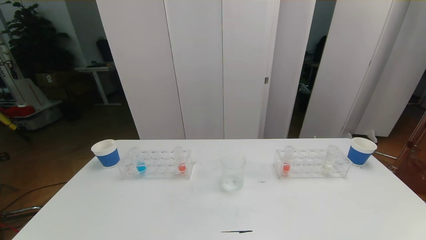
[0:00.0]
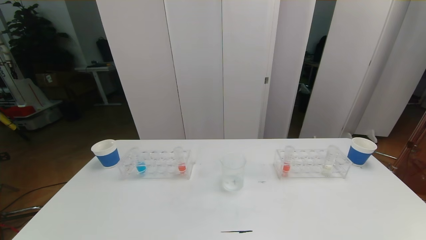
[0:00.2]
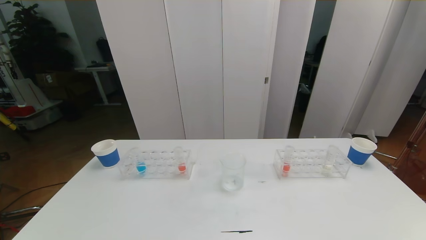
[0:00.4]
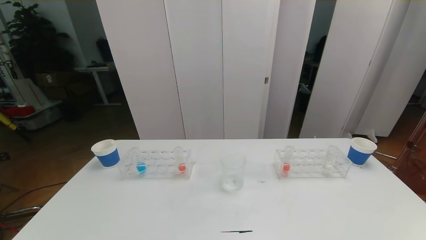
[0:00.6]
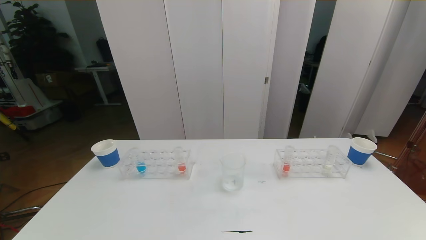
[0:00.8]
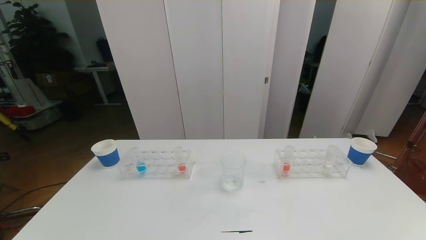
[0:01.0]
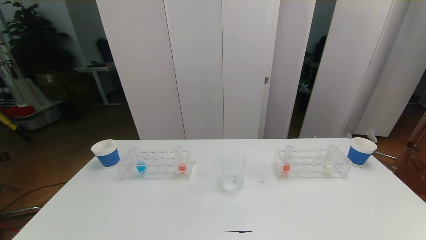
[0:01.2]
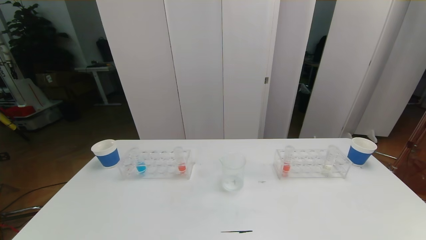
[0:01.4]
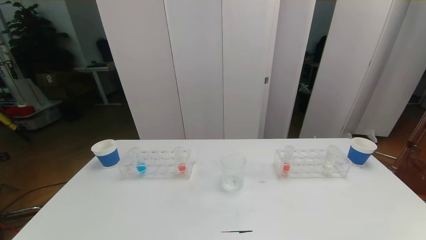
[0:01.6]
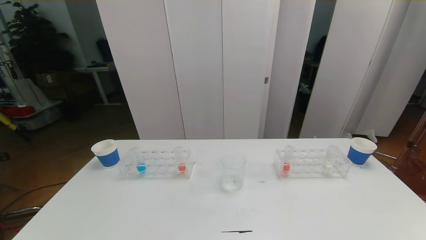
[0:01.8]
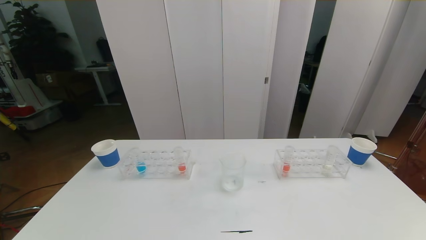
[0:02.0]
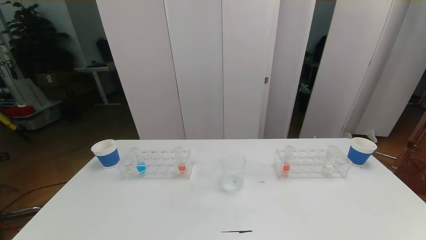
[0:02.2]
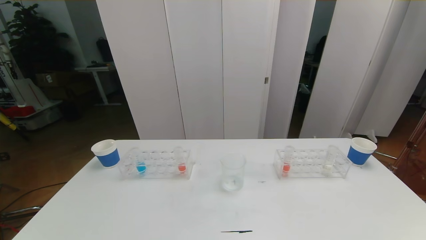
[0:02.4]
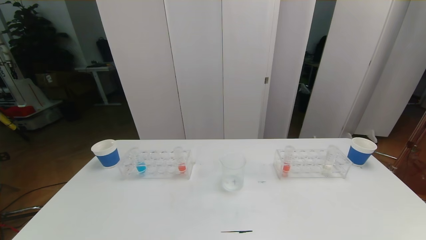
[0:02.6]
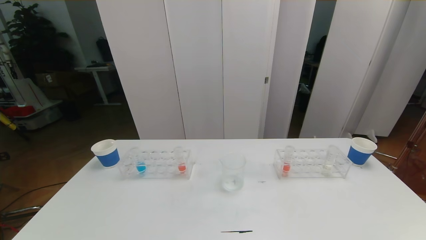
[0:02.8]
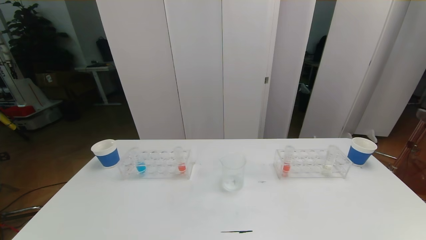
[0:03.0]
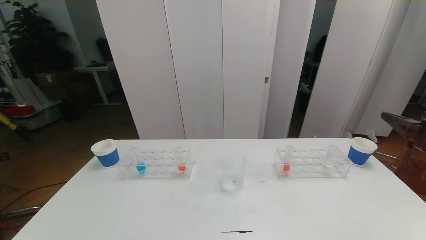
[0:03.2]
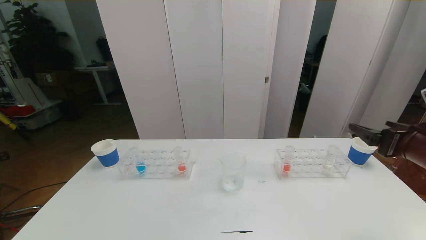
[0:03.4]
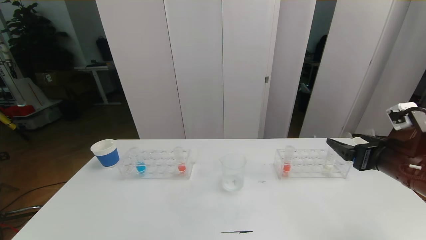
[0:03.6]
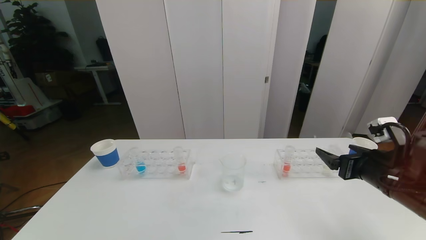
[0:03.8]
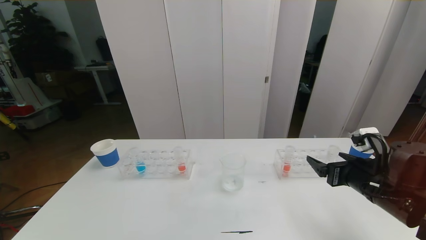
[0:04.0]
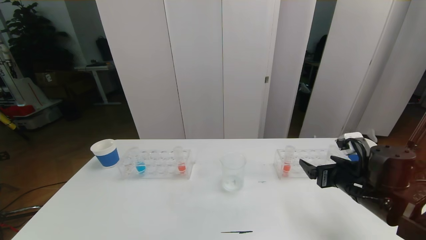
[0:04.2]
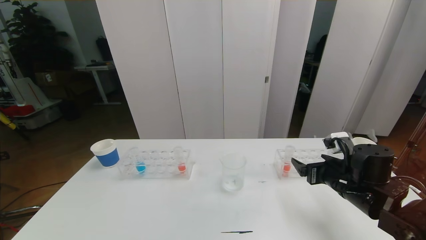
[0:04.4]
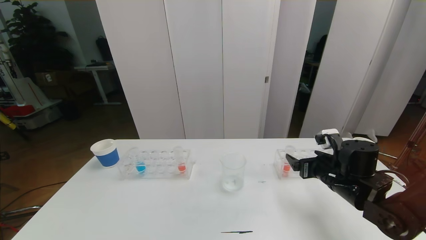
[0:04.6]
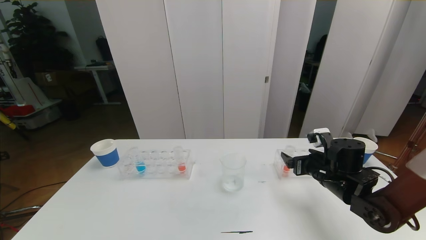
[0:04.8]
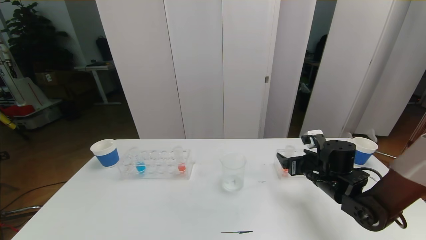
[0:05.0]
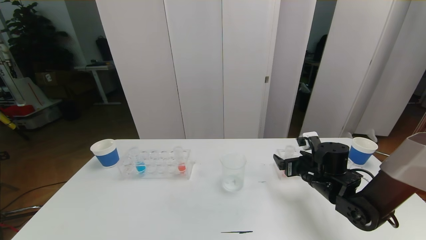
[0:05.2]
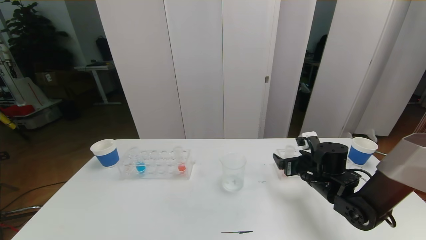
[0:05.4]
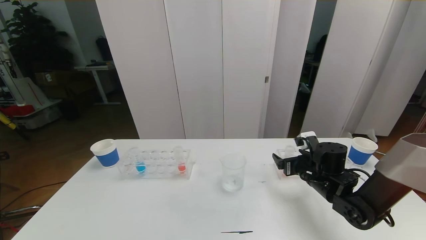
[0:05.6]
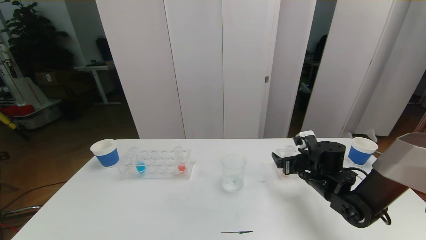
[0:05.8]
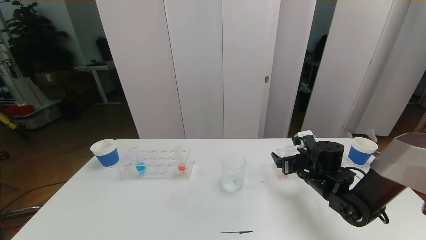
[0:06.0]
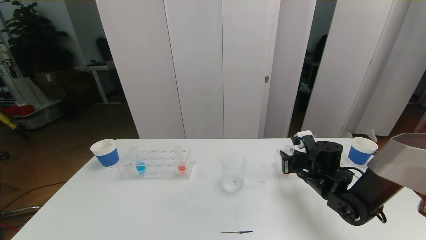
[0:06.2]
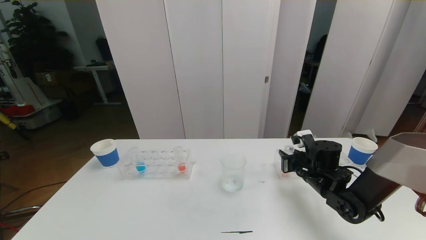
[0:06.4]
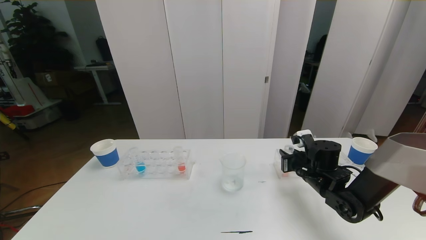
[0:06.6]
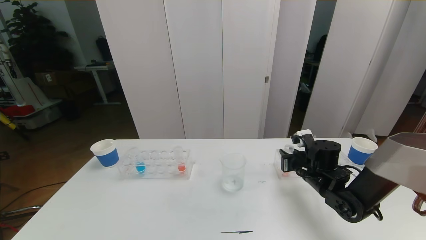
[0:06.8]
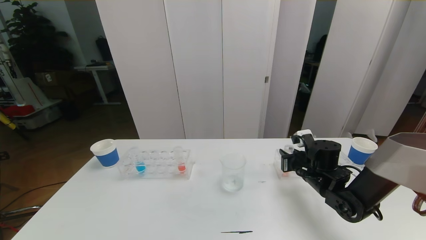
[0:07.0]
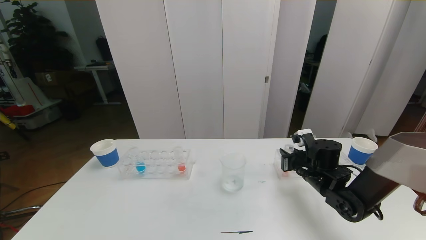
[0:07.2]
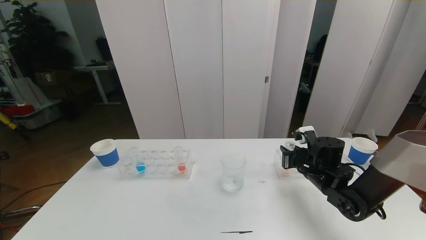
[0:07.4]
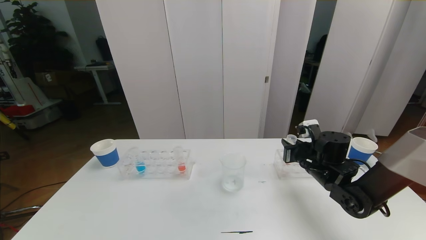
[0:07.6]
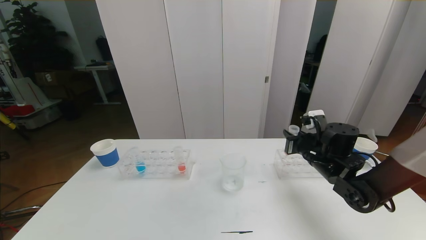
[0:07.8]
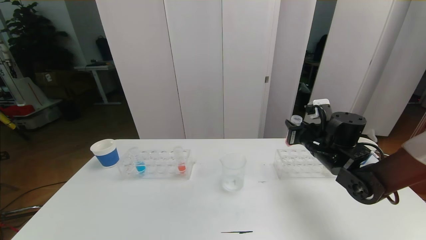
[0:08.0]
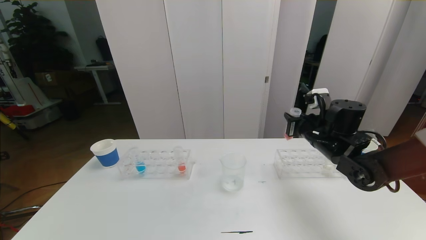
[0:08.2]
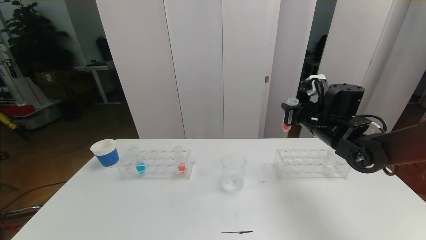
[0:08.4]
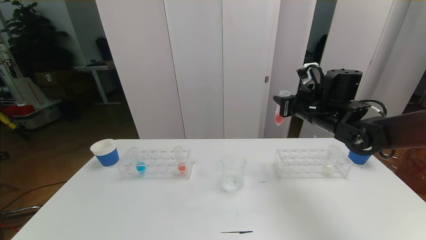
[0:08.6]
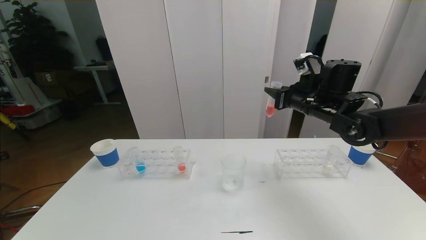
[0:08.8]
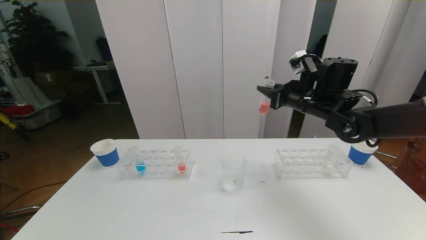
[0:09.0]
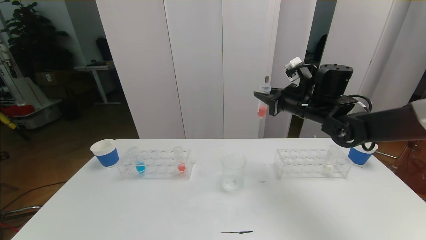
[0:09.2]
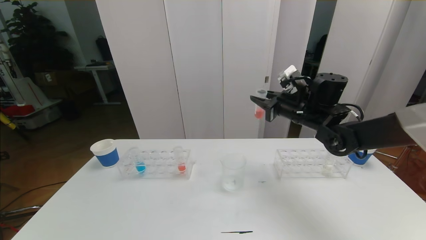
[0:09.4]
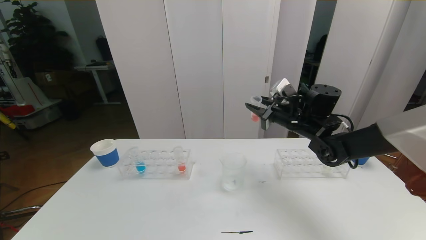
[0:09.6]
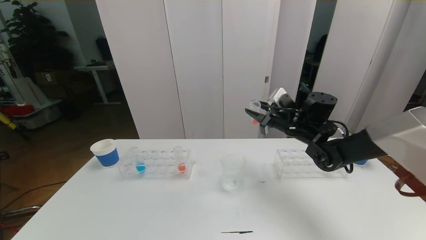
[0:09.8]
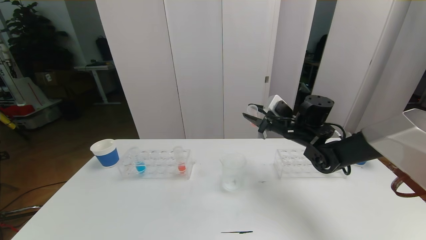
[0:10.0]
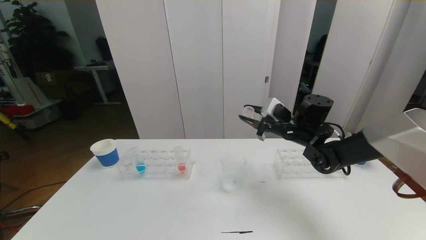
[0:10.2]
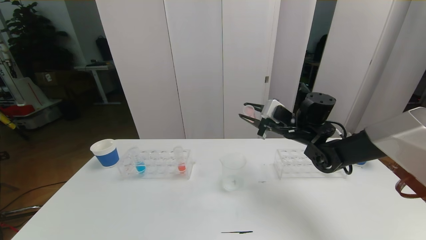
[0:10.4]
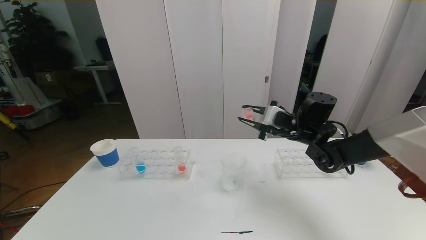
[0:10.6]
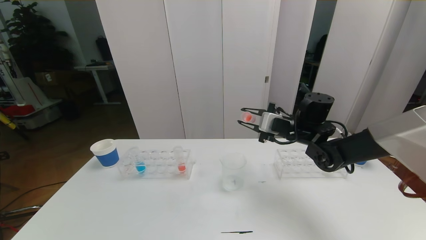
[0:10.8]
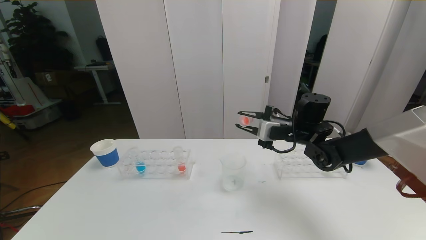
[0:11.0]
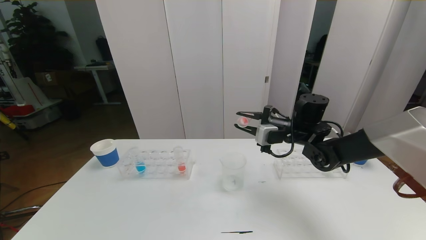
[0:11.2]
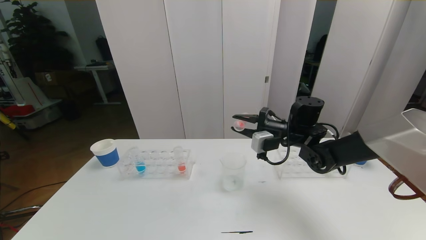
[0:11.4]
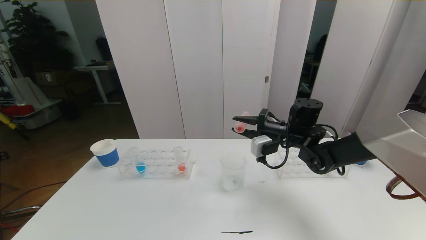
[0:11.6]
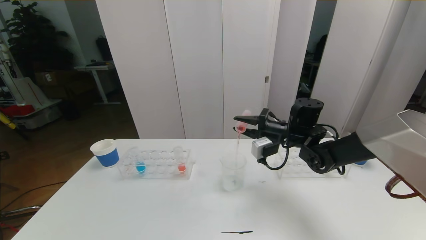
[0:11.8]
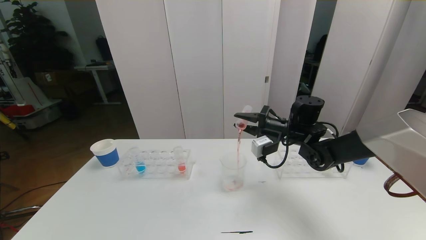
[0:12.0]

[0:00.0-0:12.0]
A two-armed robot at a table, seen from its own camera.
Task of the whole recording: pick up the test tube with red pigment the test tube with blue pigment and the test tube with white pigment by grippers and pour them into the beaker.
0:00.0 to 0:01.6: Both grippers stay about where they are.
0:03.0 to 0:04.4: The right gripper goes some 25 cm downward, forward and to the left.
0:04.4 to 0:06.0: The right gripper heads forward, covering approximately 5 cm.
0:06.0 to 0:07.6: The right gripper closes.
0:07.6 to 0:09.0: The right gripper heads upward, covering roughly 15 cm.
0:09.0 to 0:10.4: The right gripper goes roughly 5 cm downward.

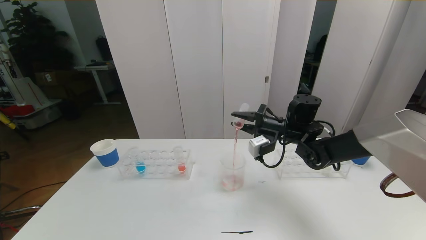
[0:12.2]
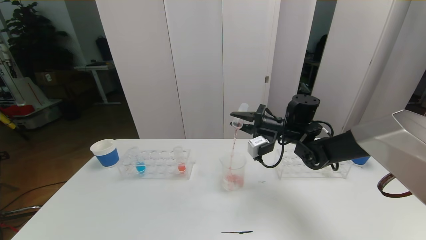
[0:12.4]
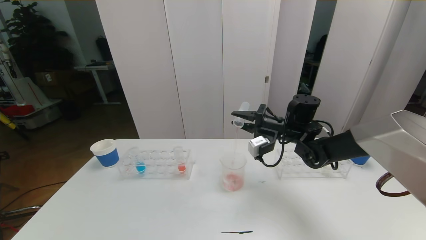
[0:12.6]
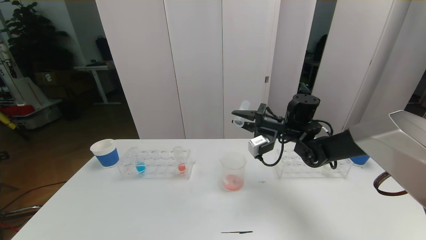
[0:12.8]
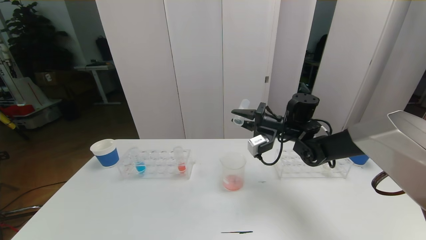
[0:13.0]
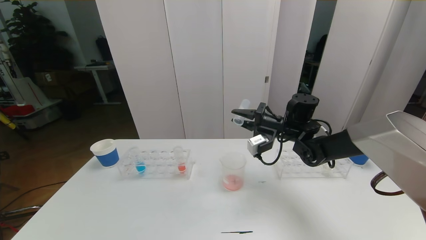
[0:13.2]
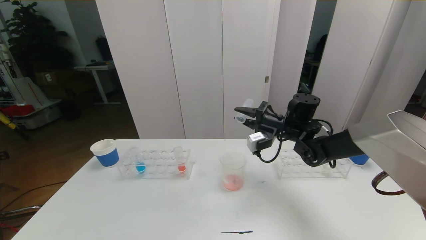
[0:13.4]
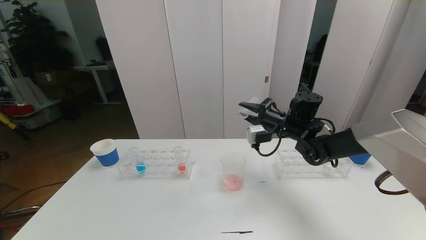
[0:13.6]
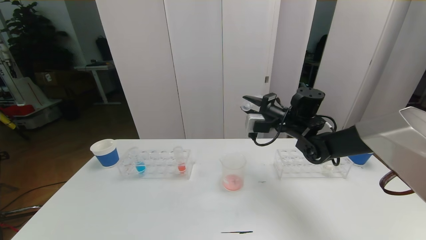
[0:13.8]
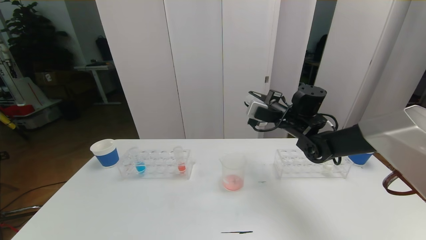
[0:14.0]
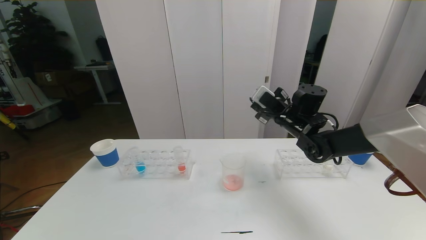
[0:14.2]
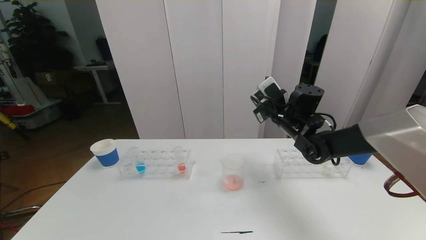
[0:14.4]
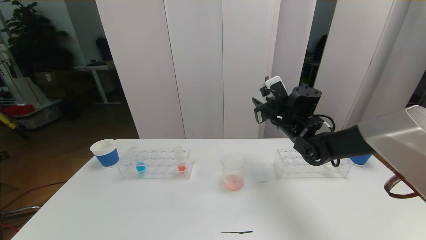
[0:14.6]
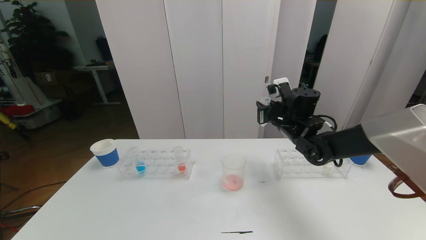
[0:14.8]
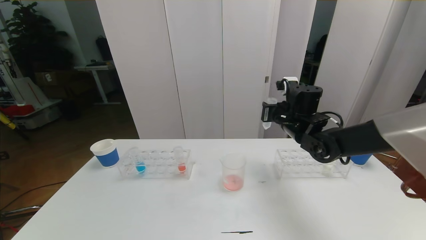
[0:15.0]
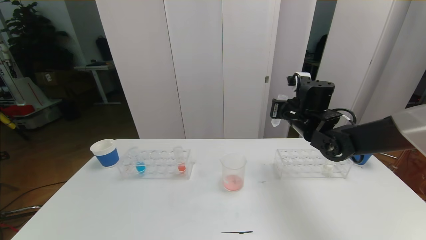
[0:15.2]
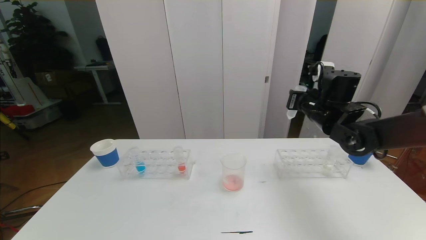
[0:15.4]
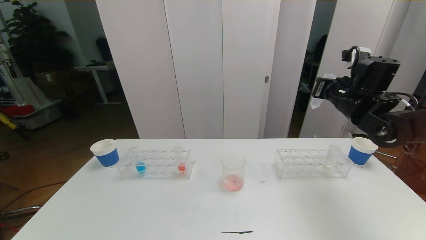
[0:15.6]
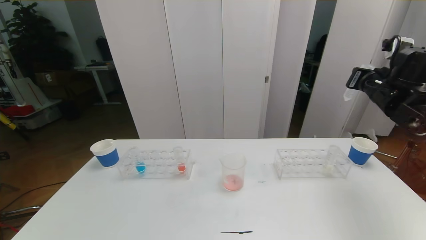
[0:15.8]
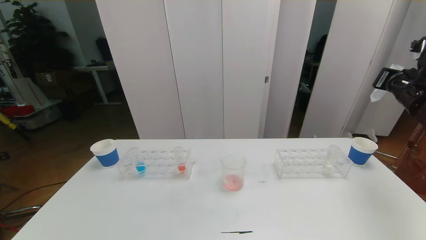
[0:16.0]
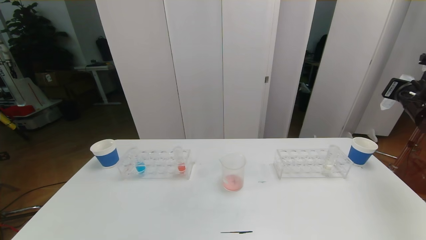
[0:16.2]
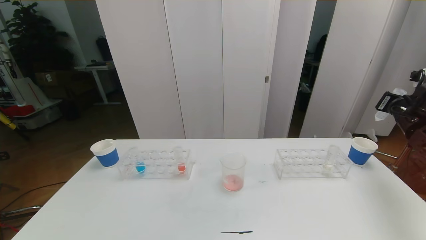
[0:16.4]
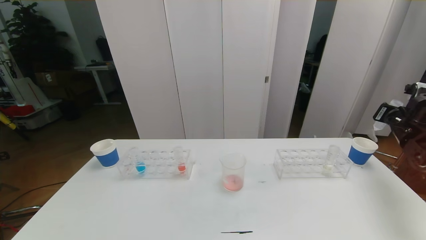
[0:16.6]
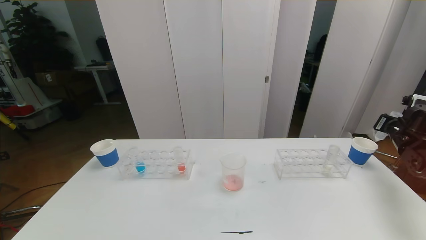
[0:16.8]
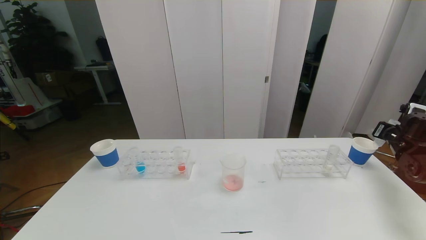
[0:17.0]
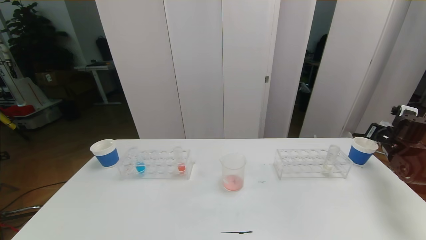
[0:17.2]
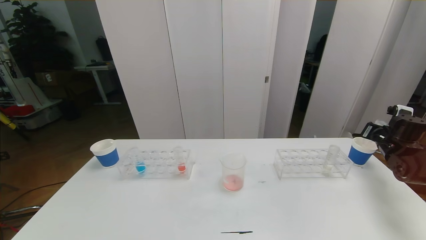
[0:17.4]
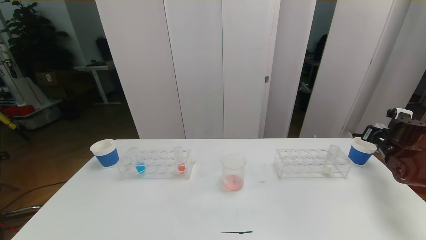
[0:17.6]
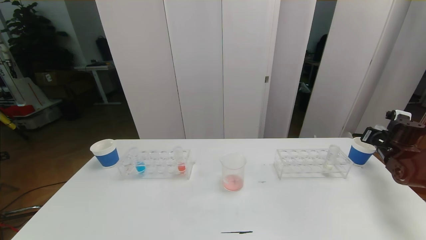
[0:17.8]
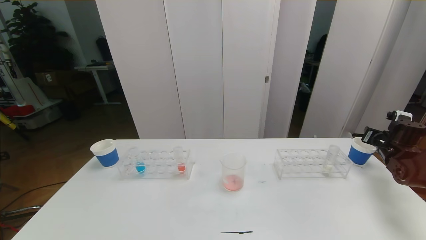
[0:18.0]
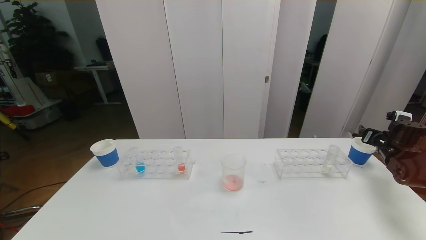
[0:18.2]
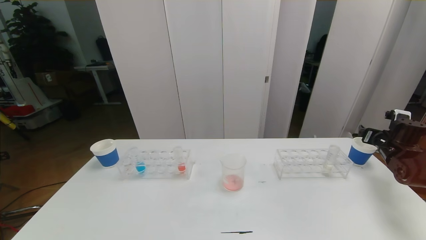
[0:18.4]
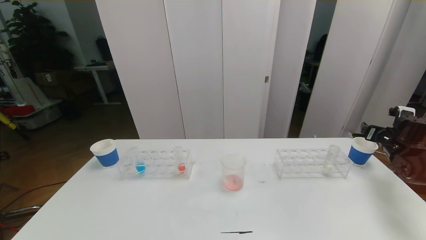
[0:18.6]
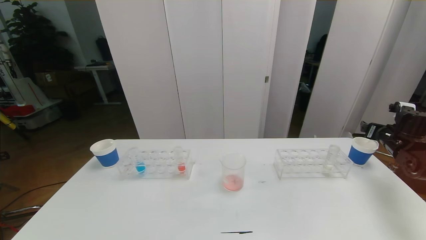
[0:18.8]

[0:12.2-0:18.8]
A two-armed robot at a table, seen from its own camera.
Task of the whole recording: pick up the test tube with red pigment the test tube with blue pigment and the test tube with white pigment by grippers and pour them into the beaker.
0:13.8 to 0:15.4: The right gripper is displaced to the right by roughly 5 cm.
0:15.4 to 0:17.2: The right gripper goes some 25 cm to the right and downward.
0:17.2 to 0:18.8: The right gripper opens up.
